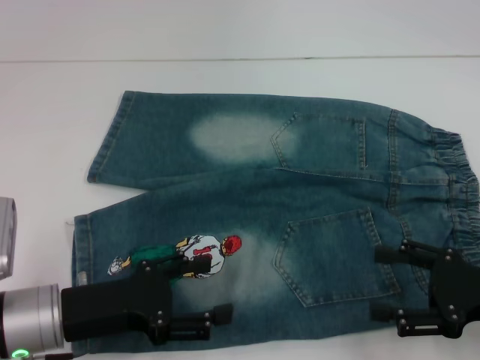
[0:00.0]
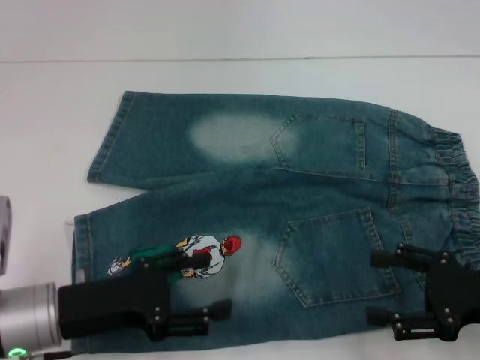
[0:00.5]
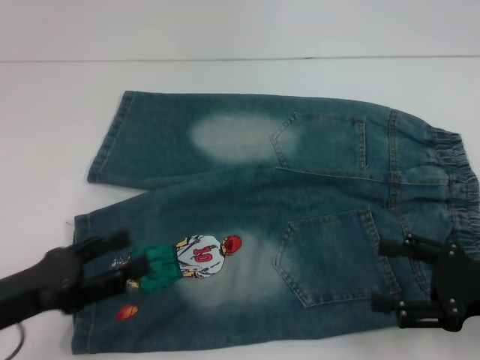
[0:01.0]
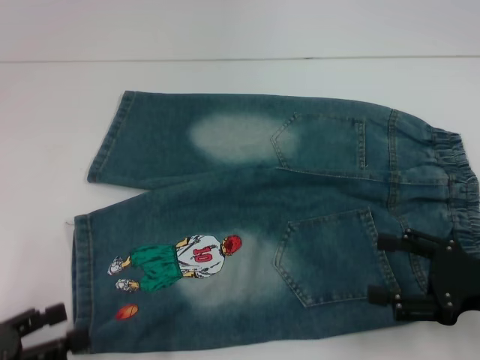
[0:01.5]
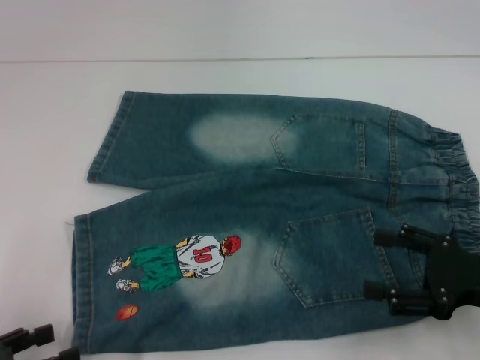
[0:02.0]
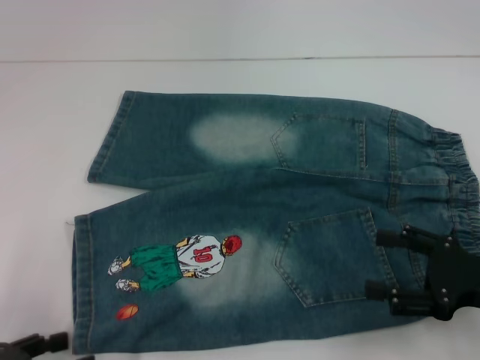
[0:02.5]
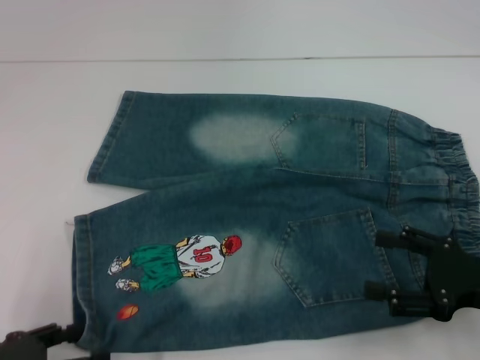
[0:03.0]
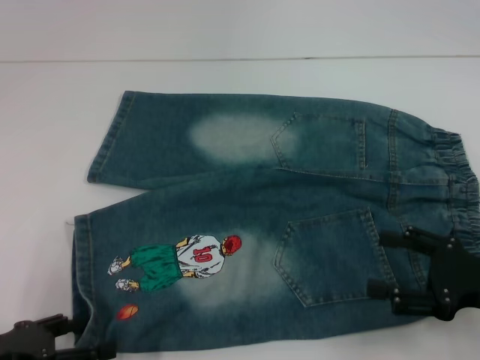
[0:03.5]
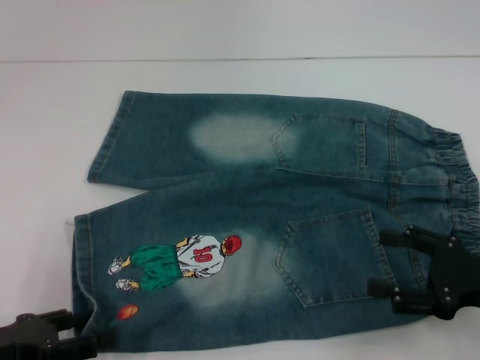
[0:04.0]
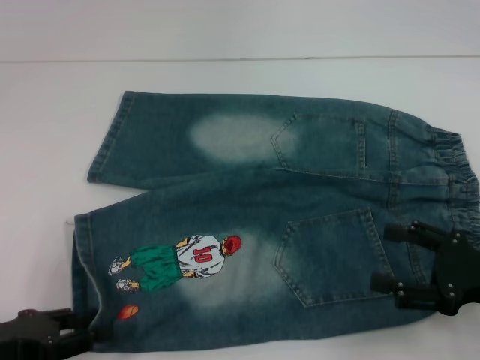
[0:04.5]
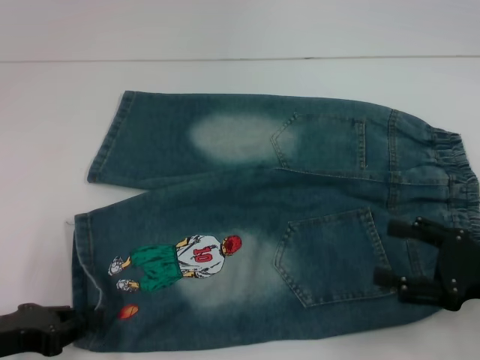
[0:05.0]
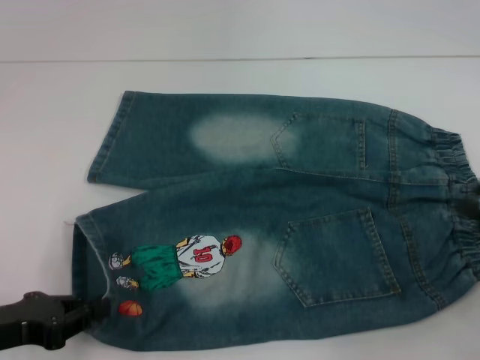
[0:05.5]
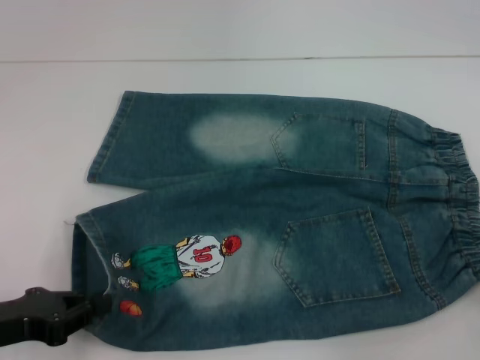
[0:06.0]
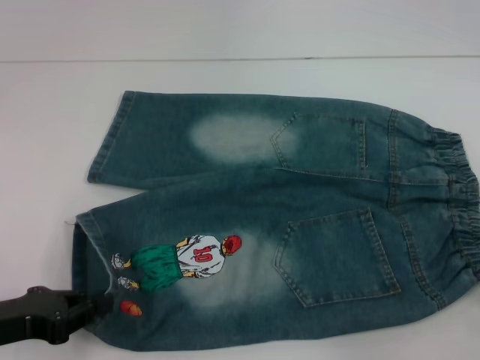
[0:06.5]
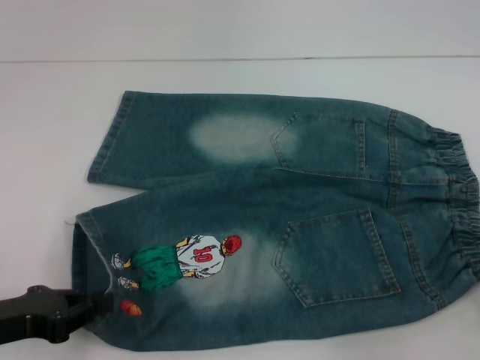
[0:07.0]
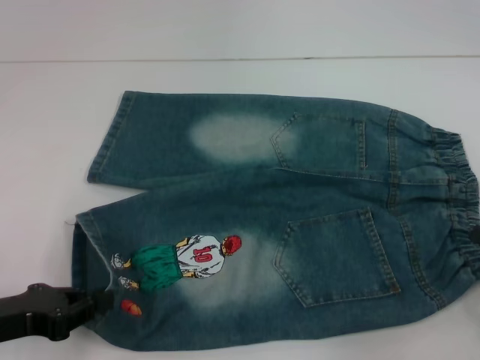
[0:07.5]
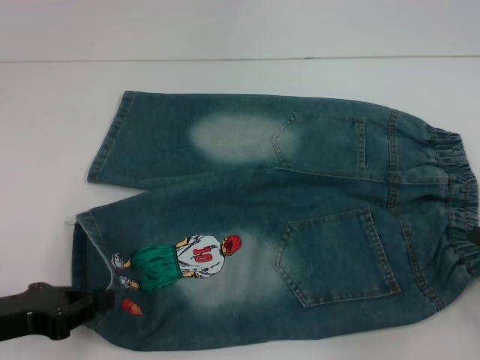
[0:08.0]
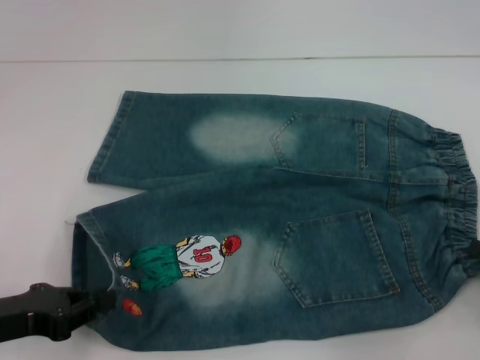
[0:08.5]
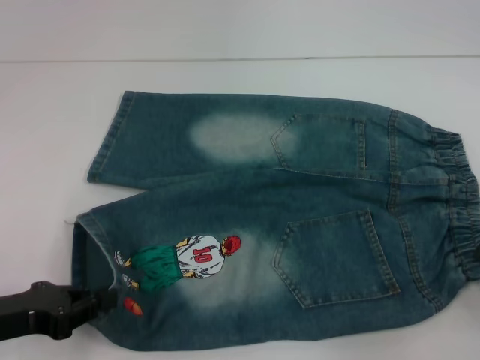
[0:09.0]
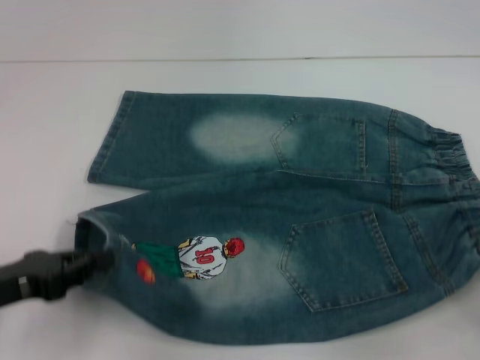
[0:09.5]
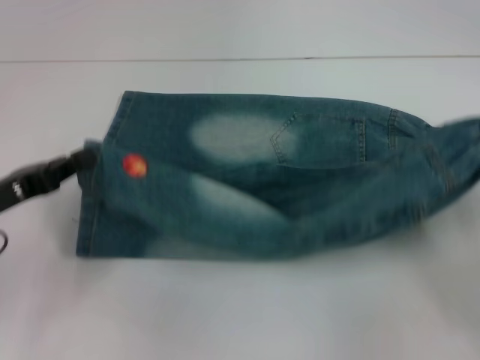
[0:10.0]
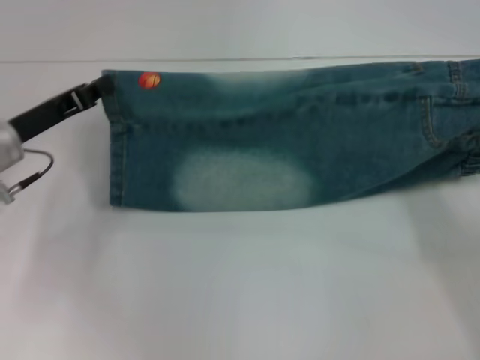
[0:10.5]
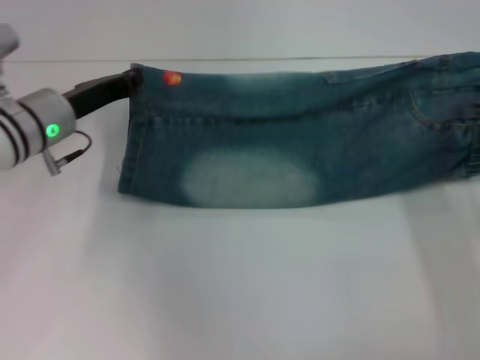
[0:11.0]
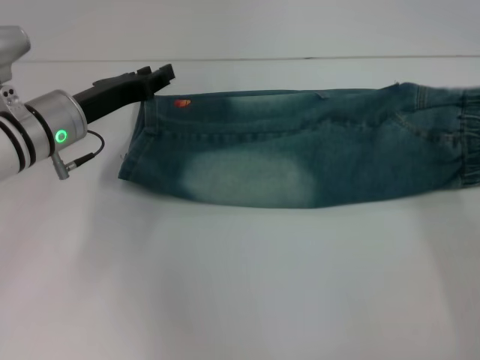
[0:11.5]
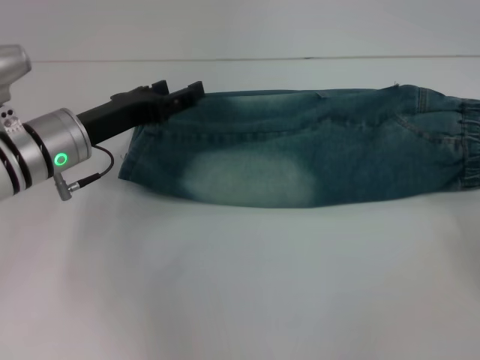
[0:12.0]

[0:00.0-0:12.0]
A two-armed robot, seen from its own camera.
Step, 0:00.0 to 0:05.0: Grab the lower left pant leg with your left hand.
Step, 0:05.5 to 0:09.0: Hold the lower right waistband with your right hand.
Step, 0:09.5 to 0:11.0: Fold upward with your left hand.
0:00.0 to 0:02.0: The left gripper heads to the left and backward, covering approximately 15 cm.
0:02.0 to 0:04.0: The left gripper changes place by about 5 cm.
0:04.0 to 0:06.0: The right gripper travels to the right and backward by about 10 cm. The left gripper closes its fingers.
0:06.0 to 0:08.0: The grippers stay close to where they were, moving slightly.
0:08.0 to 0:10.0: The two grippers go approximately 5 cm forward. The right gripper closes its fingers.
0:10.0 to 0:12.0: The left gripper heads to the right and forward, covering approximately 15 cm, and opens up; the right gripper moves roughly 10 cm forward and comes back, and opens.

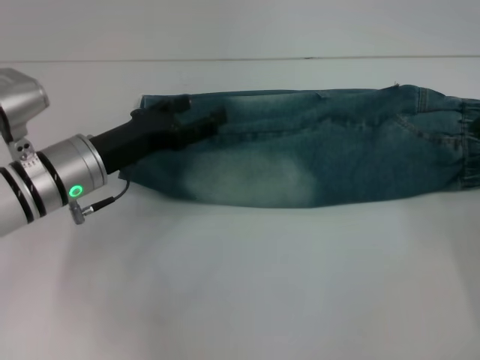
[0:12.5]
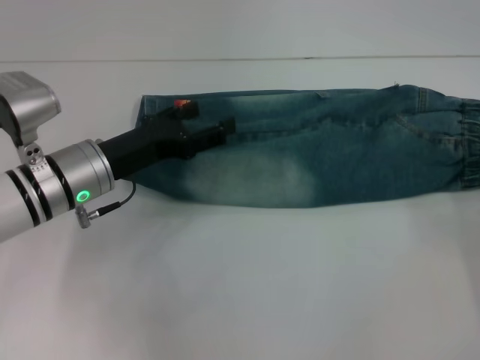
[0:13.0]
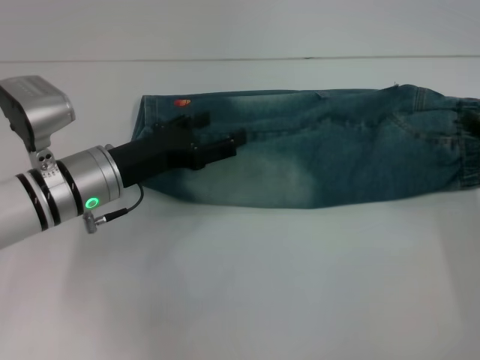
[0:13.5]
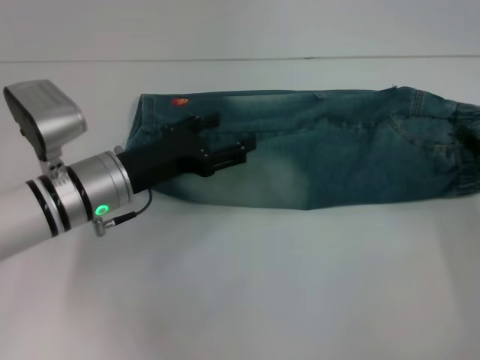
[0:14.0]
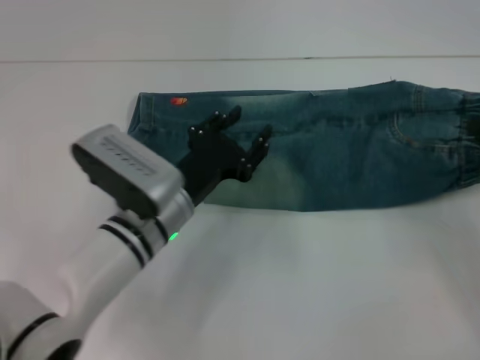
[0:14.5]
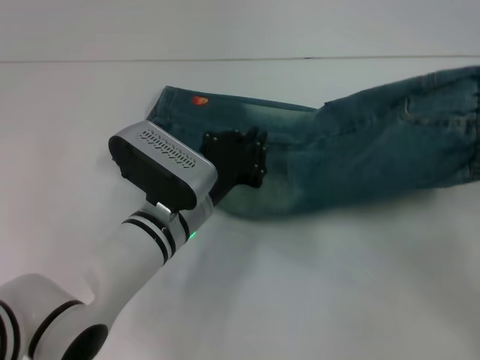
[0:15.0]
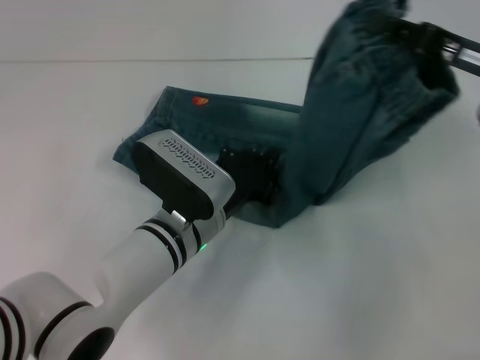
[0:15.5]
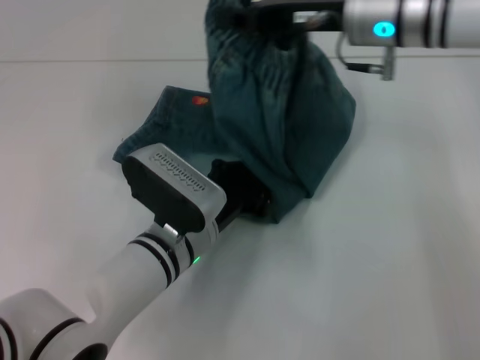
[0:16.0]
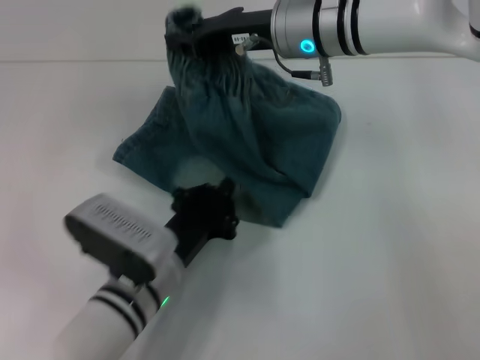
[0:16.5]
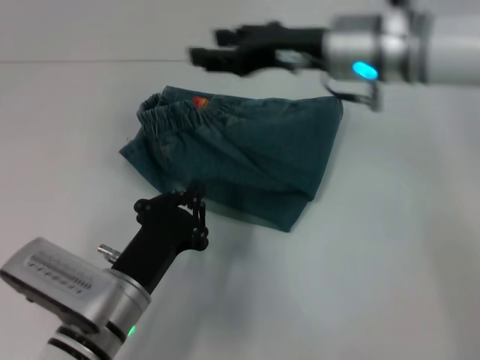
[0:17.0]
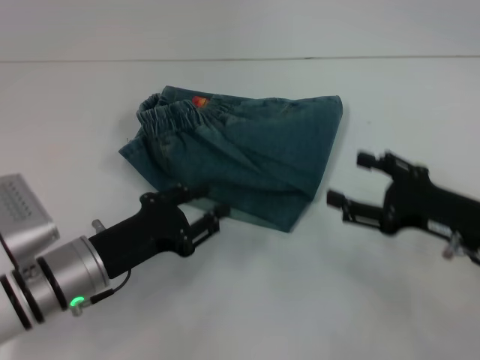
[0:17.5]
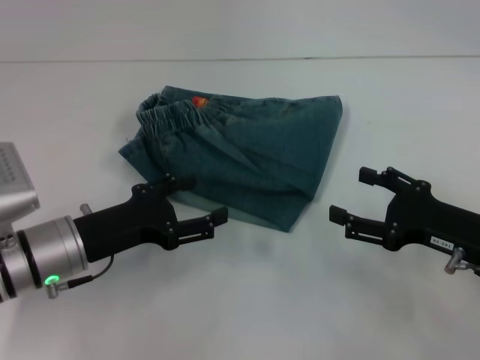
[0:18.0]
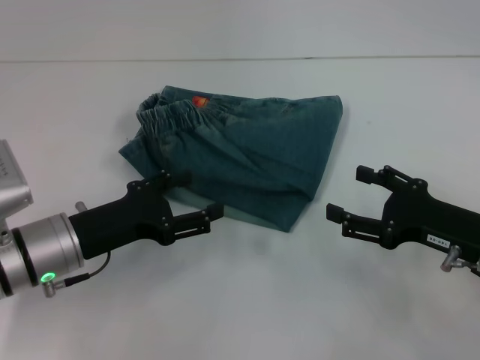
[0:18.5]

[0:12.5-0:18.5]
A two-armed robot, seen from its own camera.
Step, 0:12.5 to 0:14.0: Grab the waistband with your right hand.
0:12.5 to 0:14.5: The left gripper travels to the right by roughly 10 cm, while the right gripper closes up.
0:14.5 to 0:16.5: The right gripper travels to the left, forward and upward by about 35 cm. Meanwhile the left gripper is displaced backward by approximately 5 cm, and closes its fingers.
0:16.5 to 0:18.5: The right gripper is displaced to the right, backward and downward by roughly 30 cm, and opens its fingers. Meanwhile the left gripper goes about 10 cm to the left, and opens.
